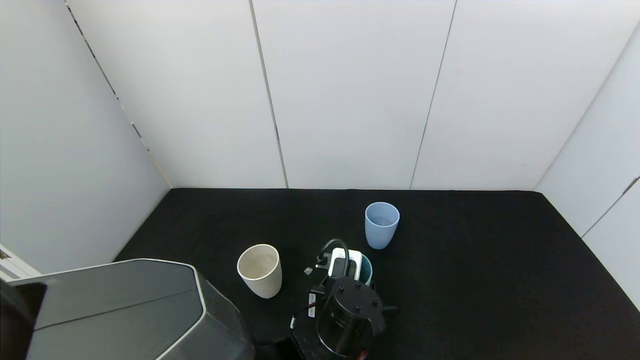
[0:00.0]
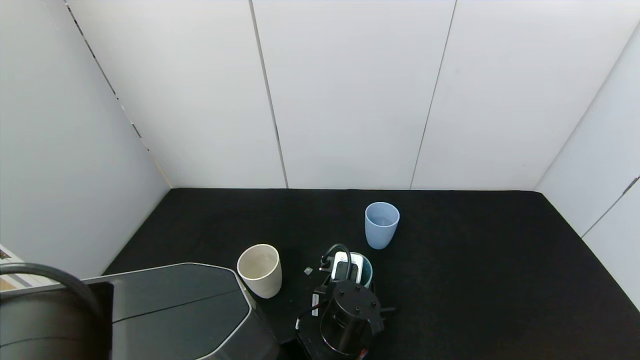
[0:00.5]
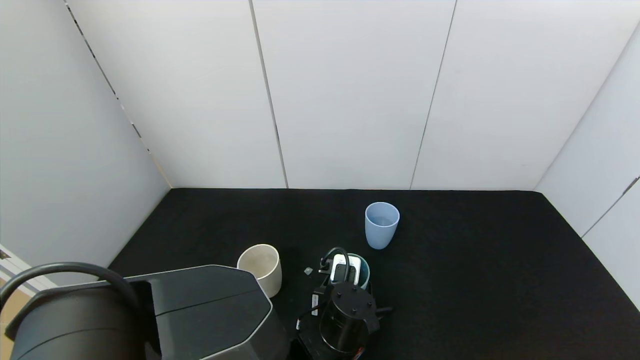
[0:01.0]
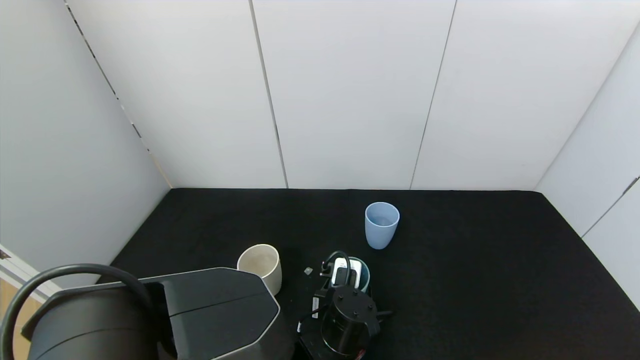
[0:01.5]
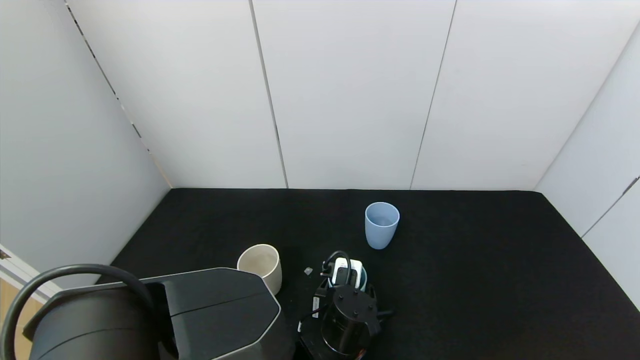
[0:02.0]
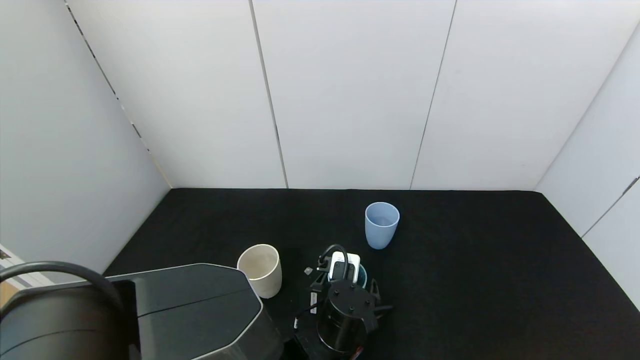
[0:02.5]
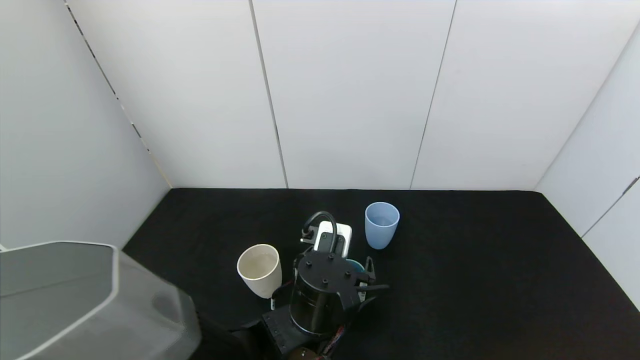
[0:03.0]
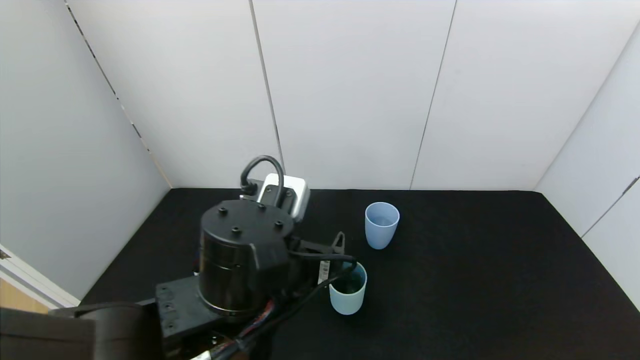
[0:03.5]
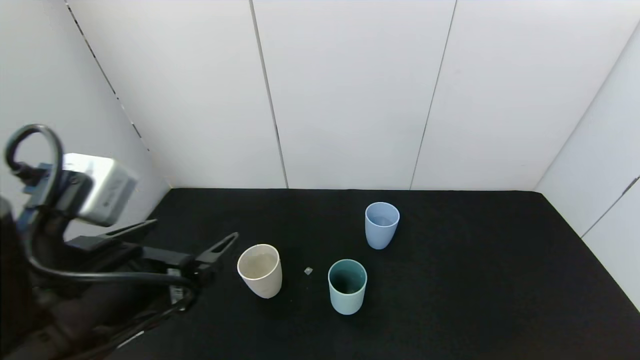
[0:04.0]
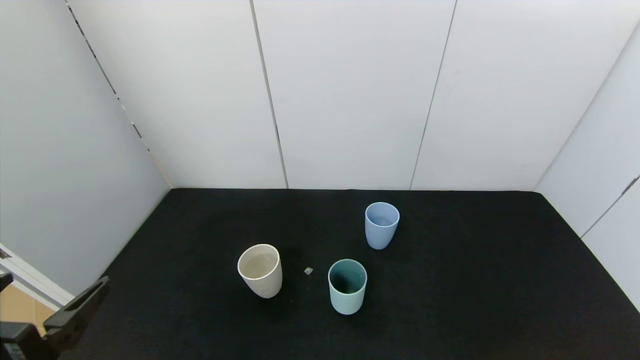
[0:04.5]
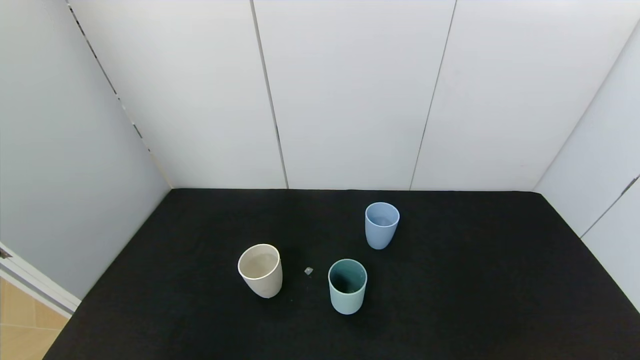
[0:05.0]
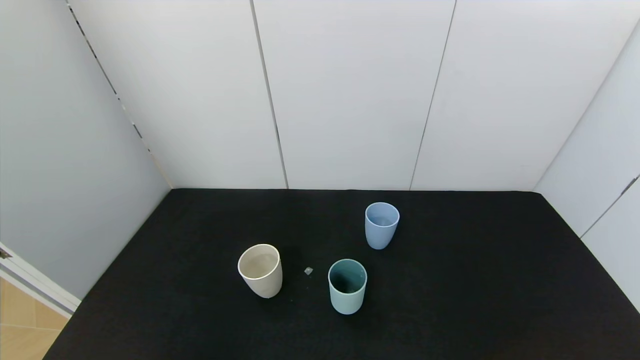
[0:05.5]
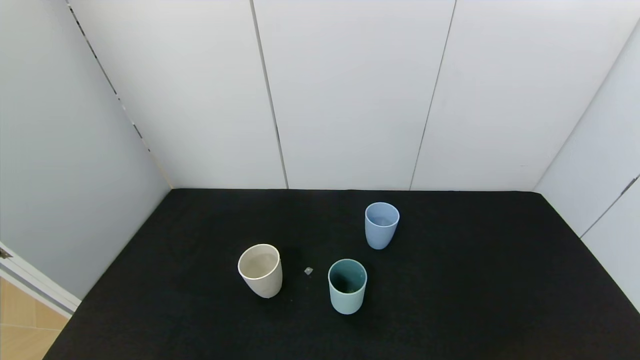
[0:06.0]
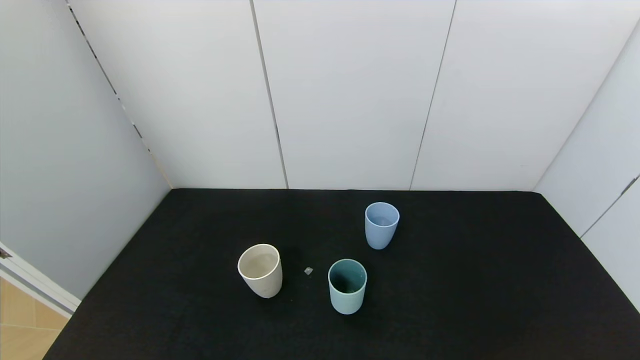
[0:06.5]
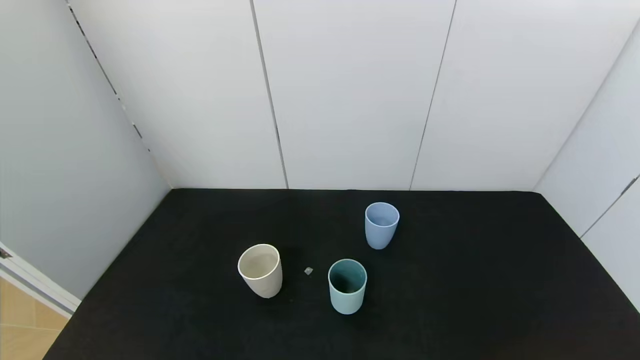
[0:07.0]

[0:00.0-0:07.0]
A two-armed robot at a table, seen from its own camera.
Task of the whole recording: use the gripper to pour the water into the other two cups on black table.
Step, 0:00.0 to 0:03.5: Place the green cup with the left gripper.
0:00.0 to 0:02.0: The left gripper opens up.
0:02.0 to 0:03.5: The left gripper is displaced upward and to the left by some 20 cm, and opens its fingers.
0:03.5 to 0:05.0: The left gripper moves to the left and backward, about 30 cm.
